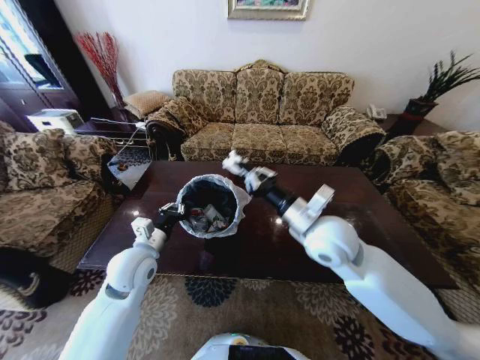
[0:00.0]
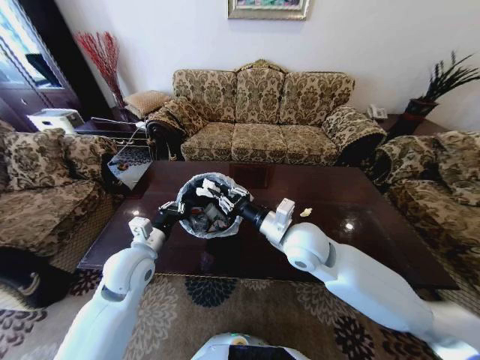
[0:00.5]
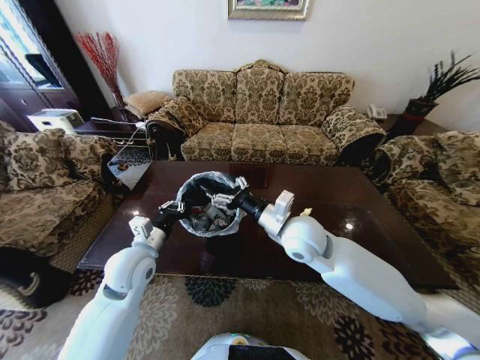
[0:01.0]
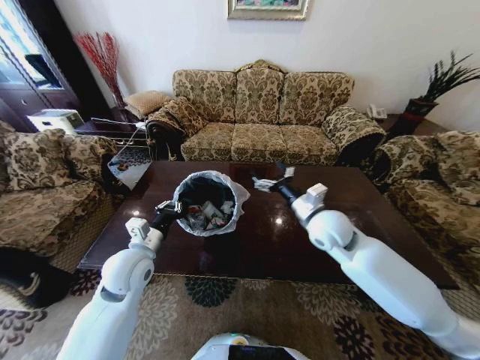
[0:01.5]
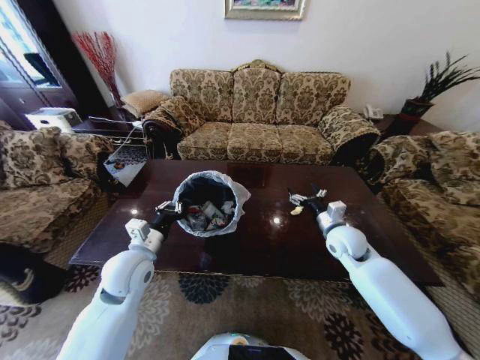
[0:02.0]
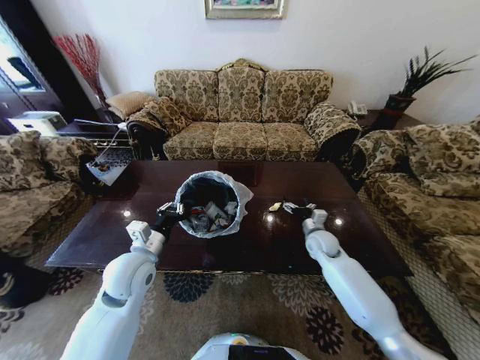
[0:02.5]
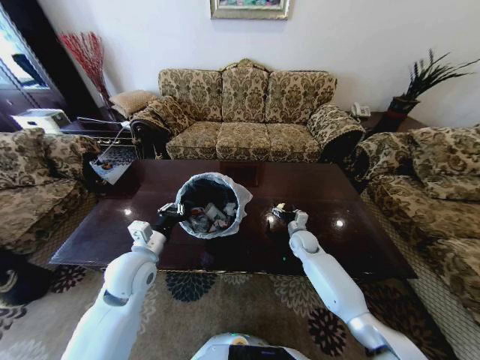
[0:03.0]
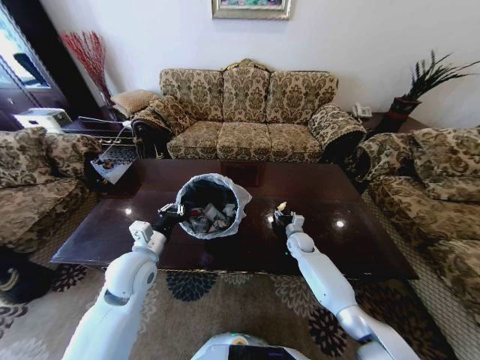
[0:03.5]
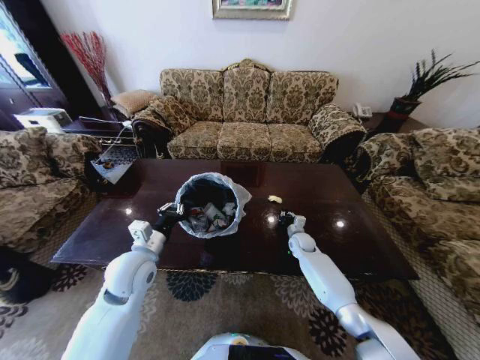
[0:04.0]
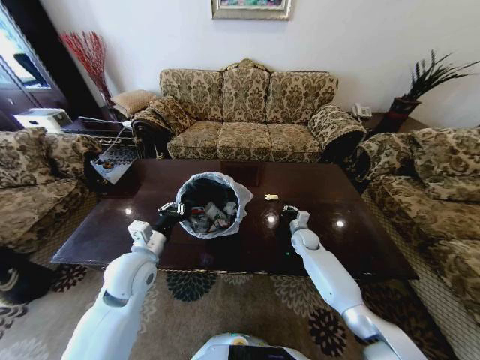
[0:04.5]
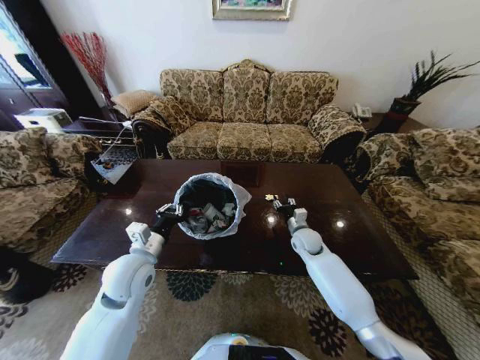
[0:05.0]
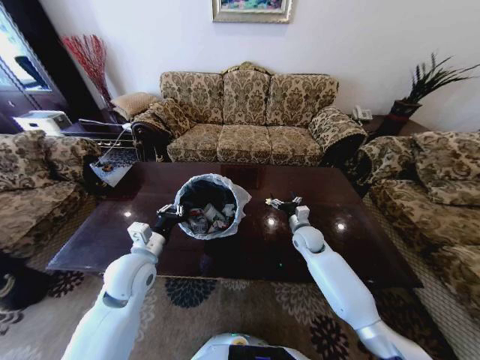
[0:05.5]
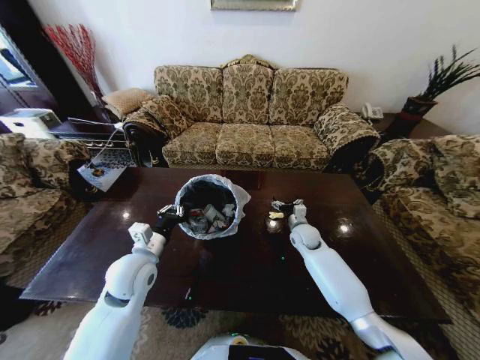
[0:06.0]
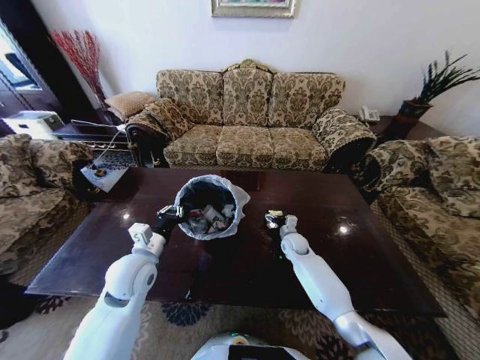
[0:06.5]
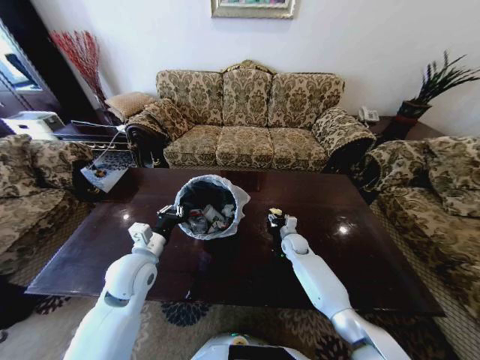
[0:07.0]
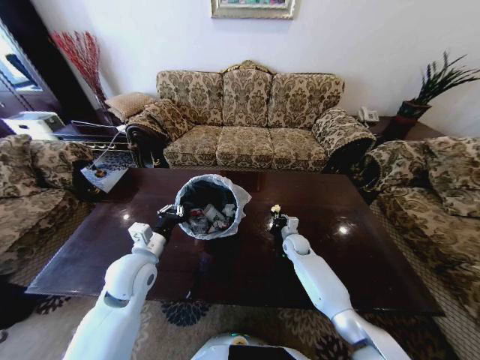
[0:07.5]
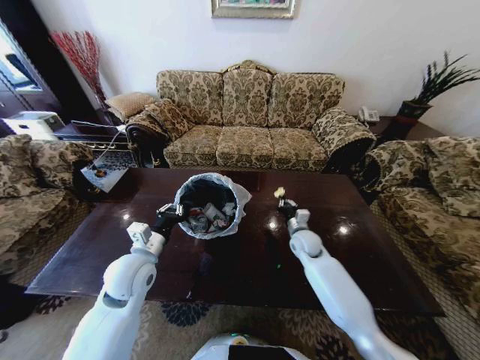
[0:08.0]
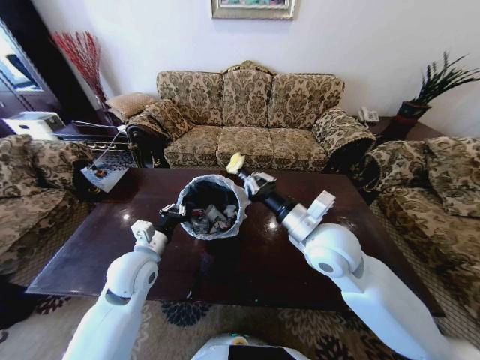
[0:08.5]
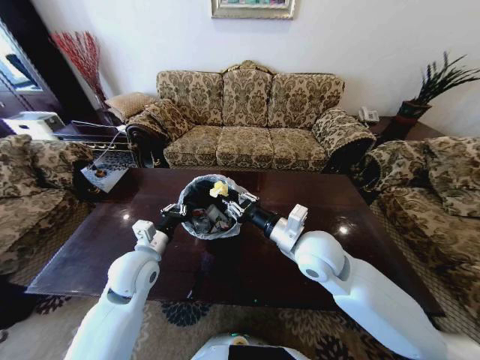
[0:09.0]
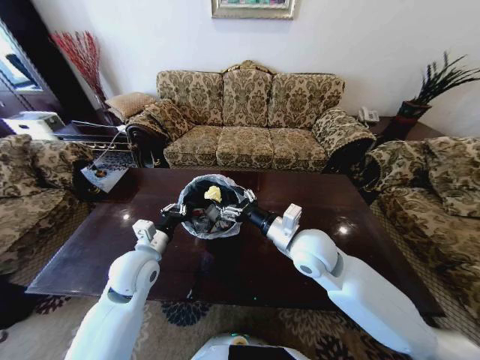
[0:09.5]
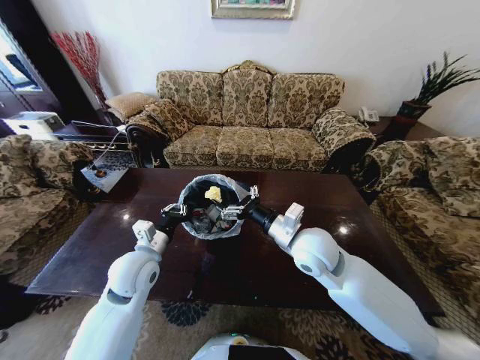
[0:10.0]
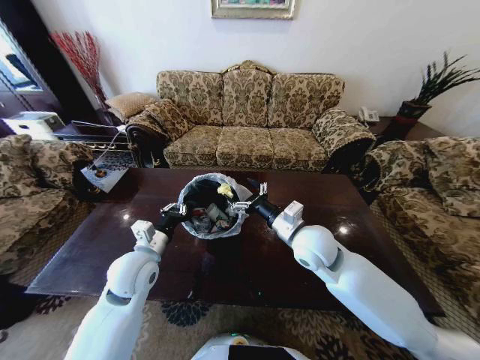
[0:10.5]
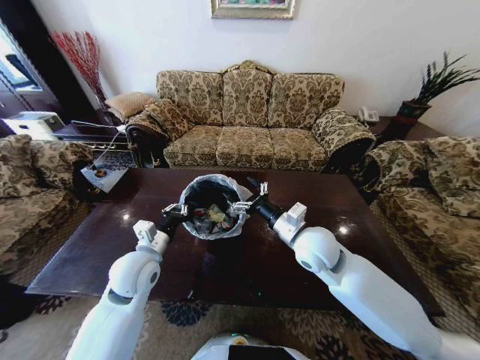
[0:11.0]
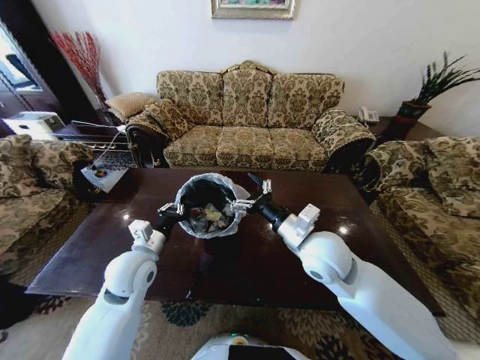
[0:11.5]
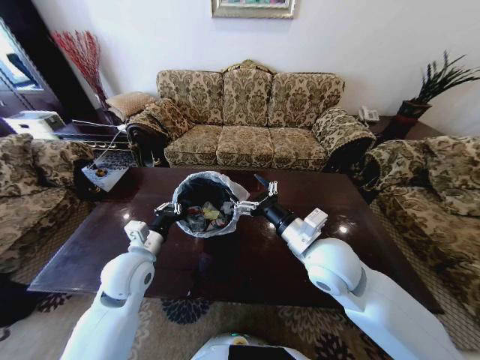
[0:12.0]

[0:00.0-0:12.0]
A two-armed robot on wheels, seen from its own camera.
Task of the whole recording: Move to the front of the table and place the trash on the table into the trash bin.
0:00.0 to 0:02.0: The right gripper travels to the right, downward and forward by about 20 cm, and opens.
0:02.0 to 0:04.0: The right gripper is displaced downward and forward by roughly 20 cm, and closes its fingers.
0:04.0 to 0:06.0: The right gripper goes roughly 10 cm upward, and opens.
0:06.0 to 0:08.0: The right gripper travels downward and back again, some 10 cm each way, and closes its fingers.
0:08.0 to 0:10.0: The right gripper travels upward, backward and to the left by about 20 cm, and opens its fingers.
0:10.0 to 0:12.0: The grippers make only small movements.

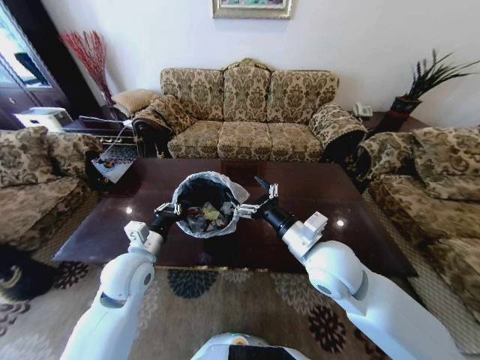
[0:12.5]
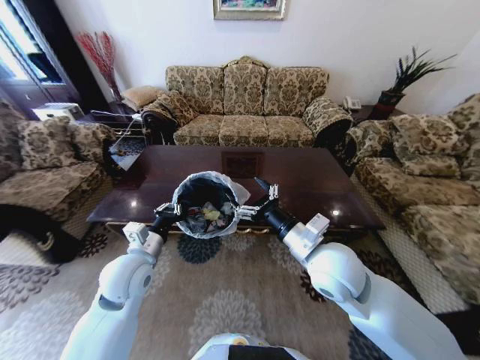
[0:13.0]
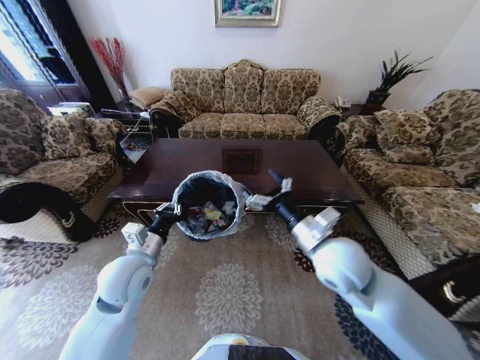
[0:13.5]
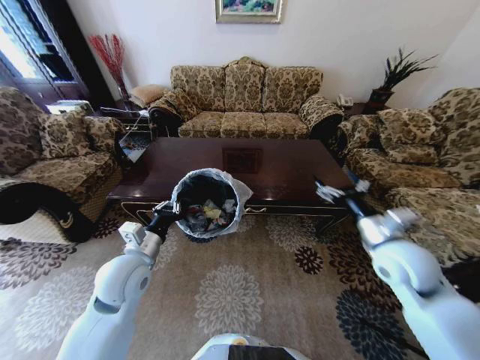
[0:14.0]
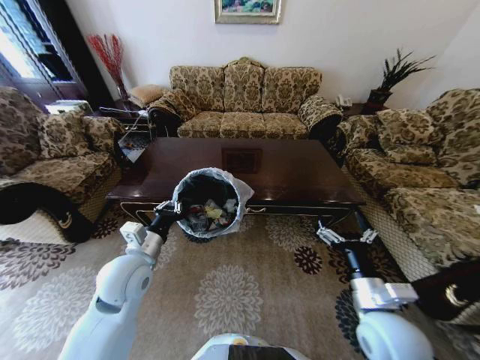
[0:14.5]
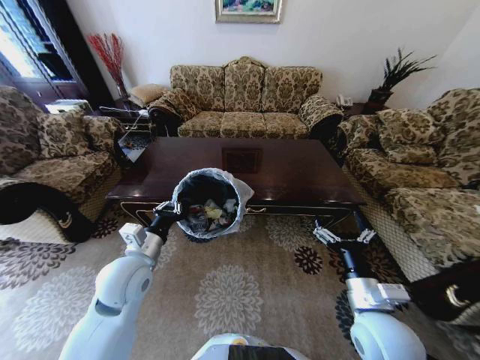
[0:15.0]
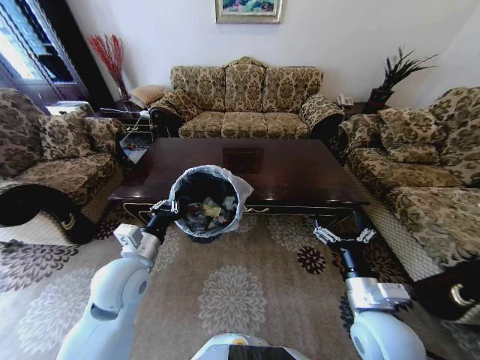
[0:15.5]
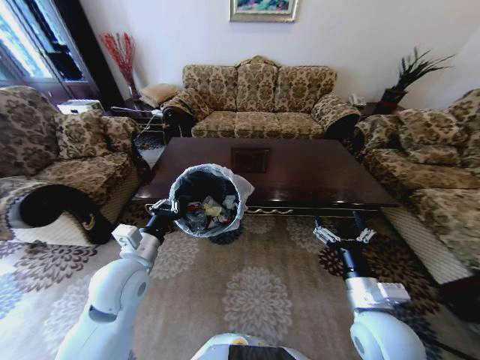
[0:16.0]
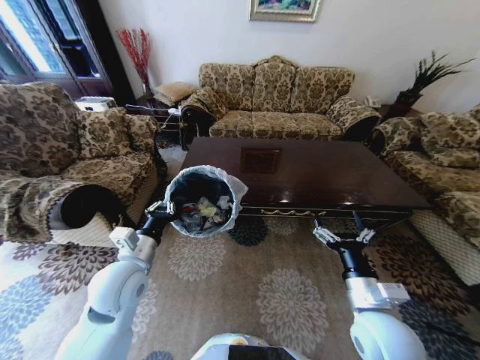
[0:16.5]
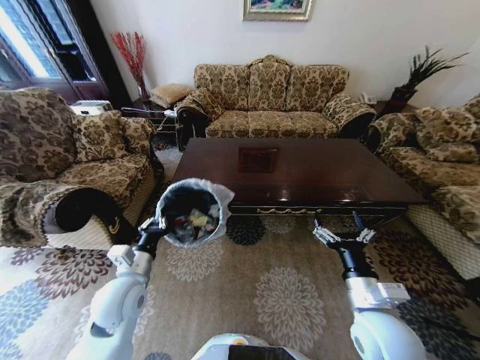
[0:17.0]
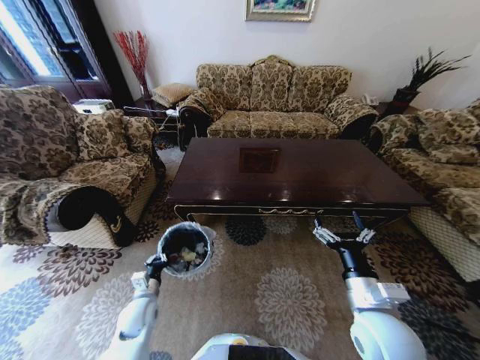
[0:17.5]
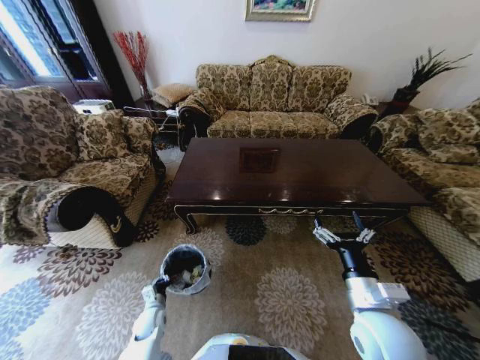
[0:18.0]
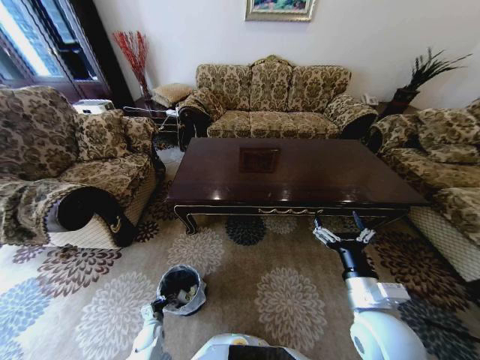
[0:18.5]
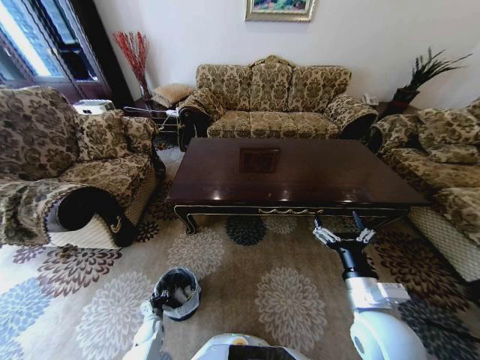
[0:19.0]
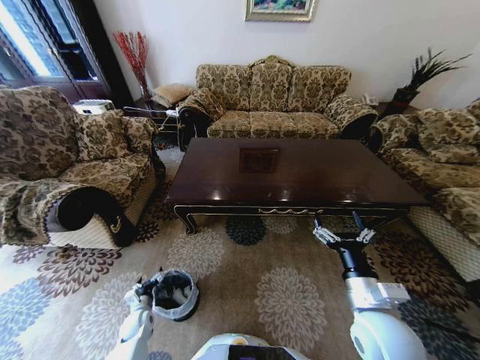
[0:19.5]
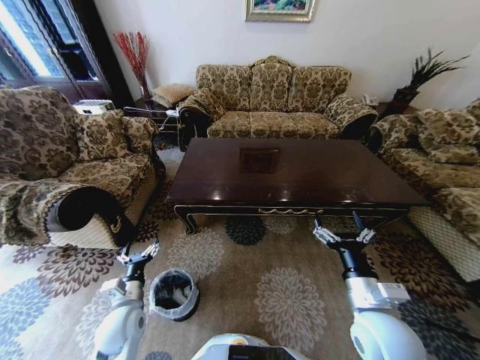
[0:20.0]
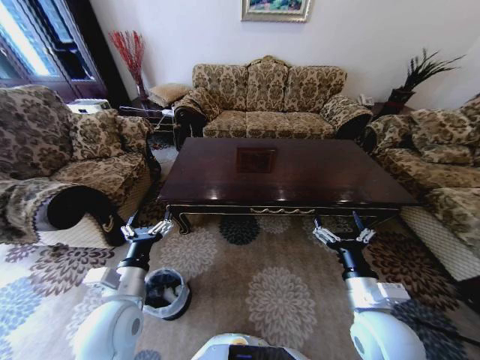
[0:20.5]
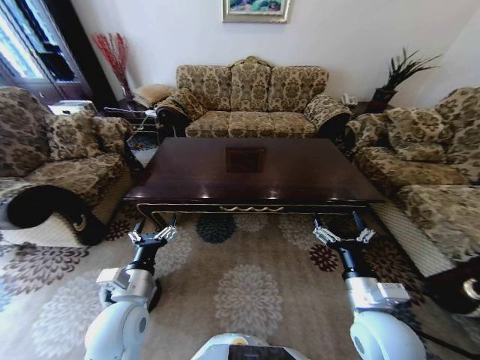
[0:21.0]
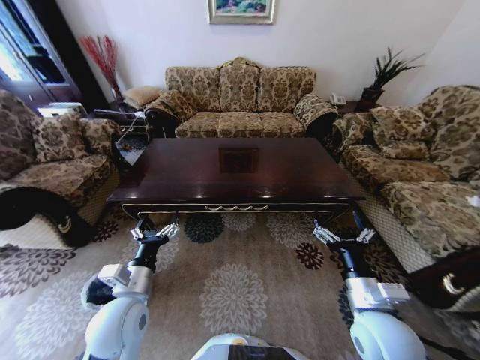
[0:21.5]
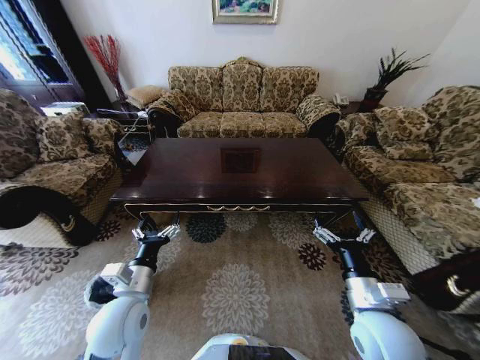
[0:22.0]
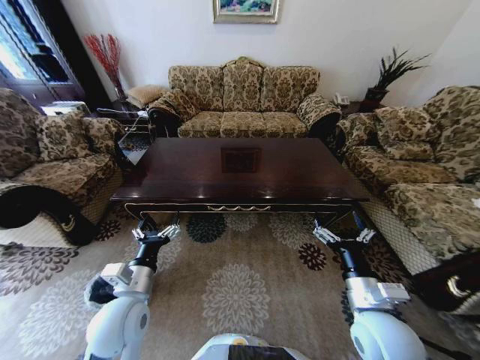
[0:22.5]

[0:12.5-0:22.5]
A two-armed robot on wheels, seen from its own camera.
Task of the whole recording: Move to the front of the table and place the trash on the table into the trash bin.
0:12.5 to 0:14.5: The right gripper shifts about 15 cm to the right, backward and downward.
0:16.5 to 0:18.5: The left gripper travels downward by roughly 40 cm.
0:18.5 to 0:20.5: The left gripper is displaced upward by about 40 cm, and opens up.
